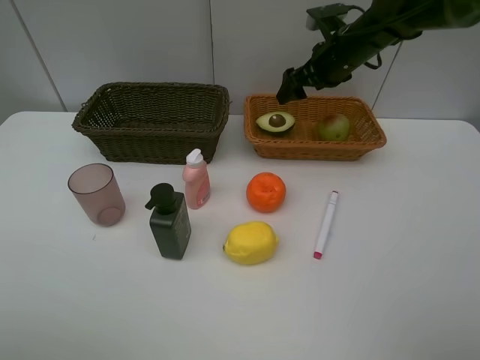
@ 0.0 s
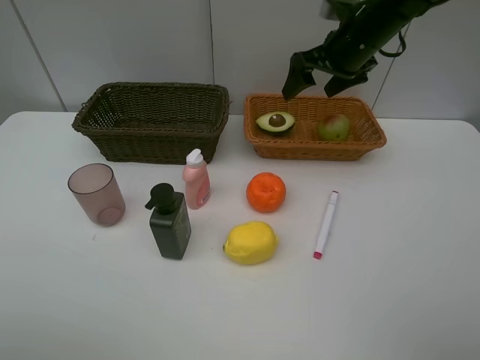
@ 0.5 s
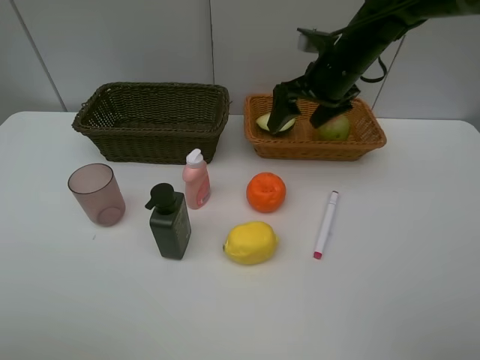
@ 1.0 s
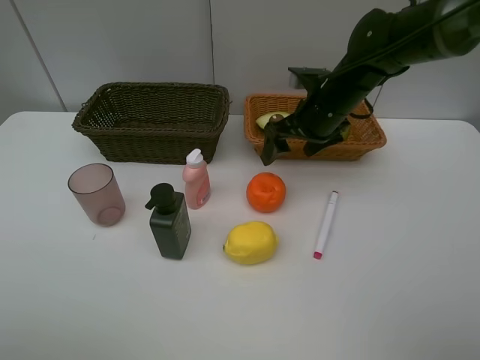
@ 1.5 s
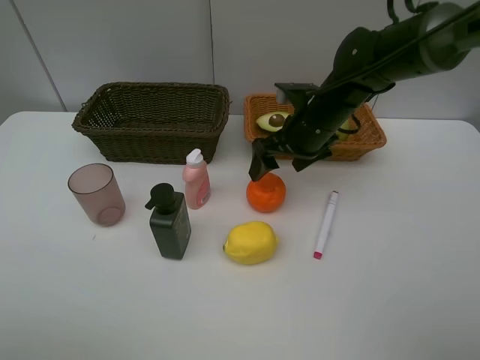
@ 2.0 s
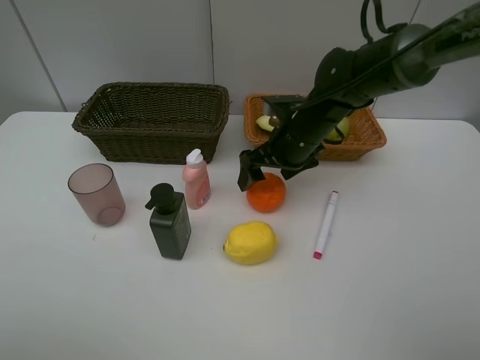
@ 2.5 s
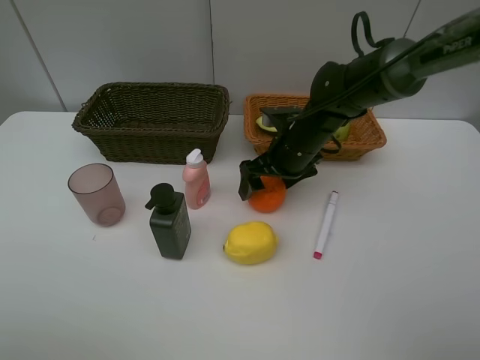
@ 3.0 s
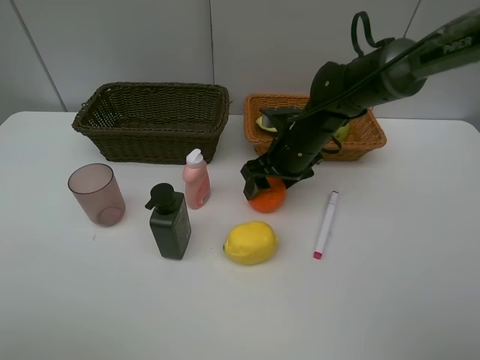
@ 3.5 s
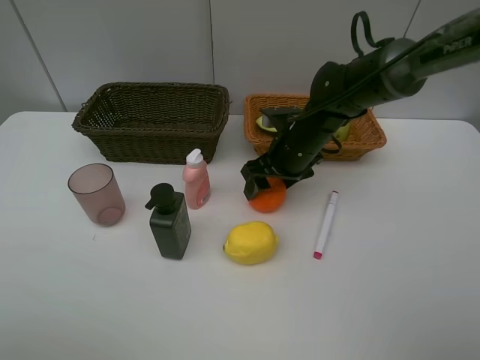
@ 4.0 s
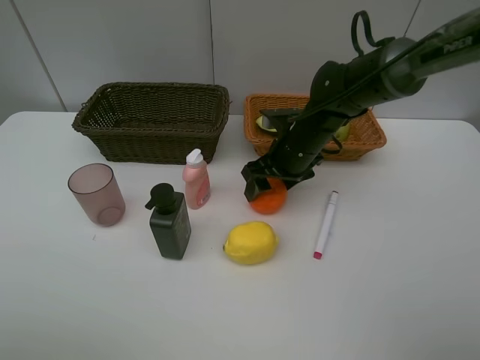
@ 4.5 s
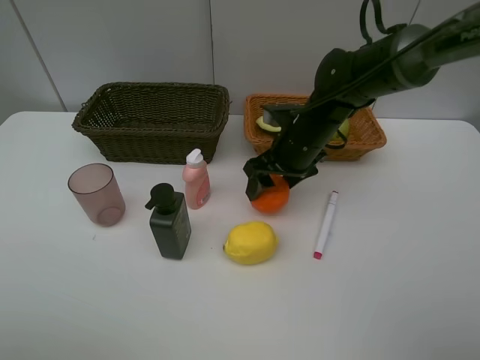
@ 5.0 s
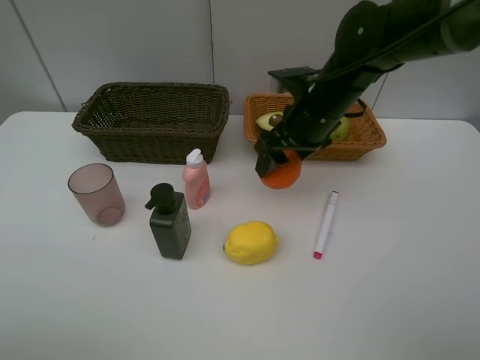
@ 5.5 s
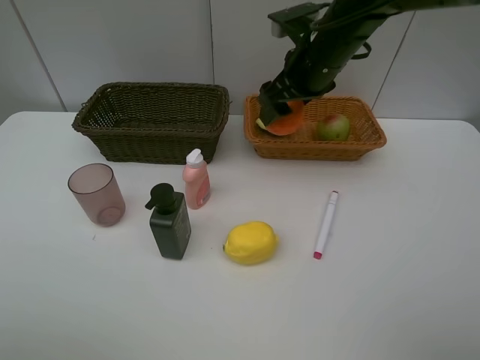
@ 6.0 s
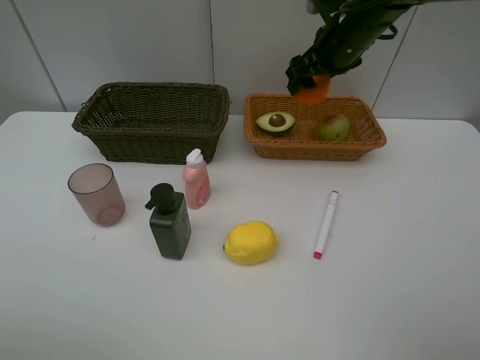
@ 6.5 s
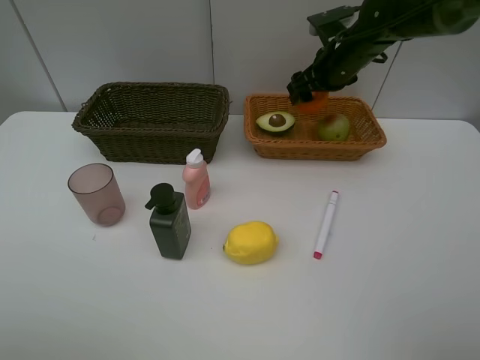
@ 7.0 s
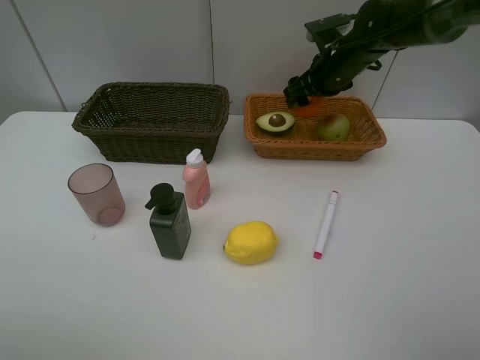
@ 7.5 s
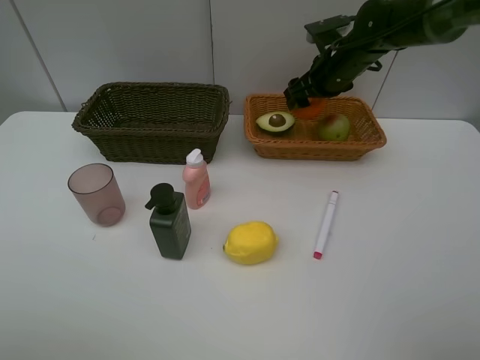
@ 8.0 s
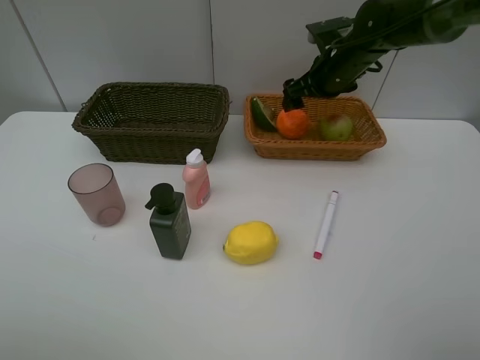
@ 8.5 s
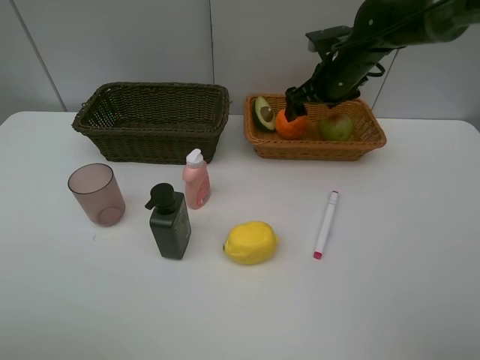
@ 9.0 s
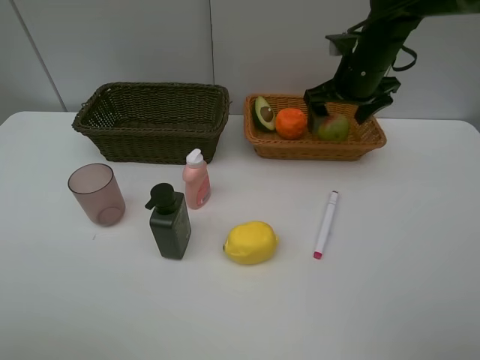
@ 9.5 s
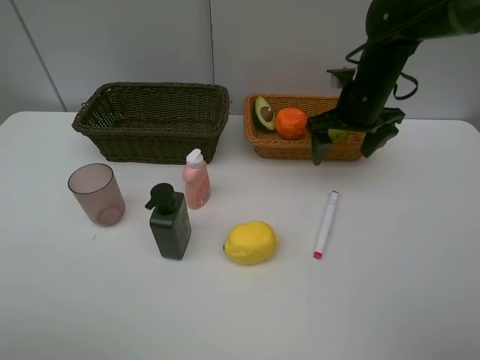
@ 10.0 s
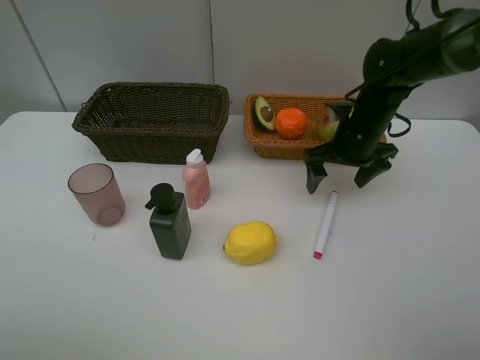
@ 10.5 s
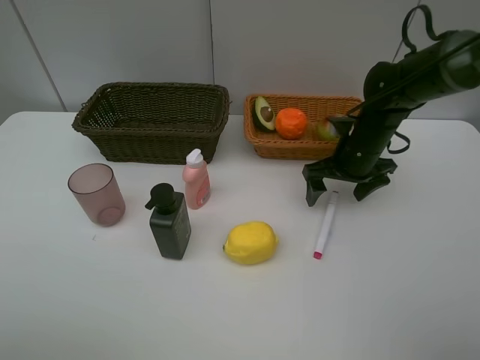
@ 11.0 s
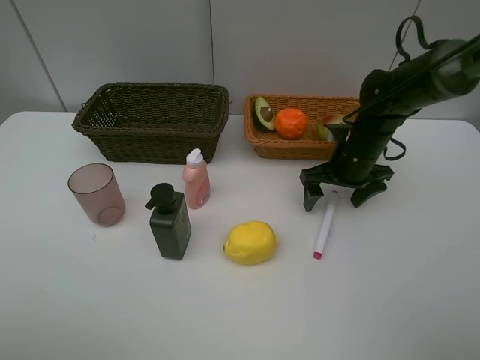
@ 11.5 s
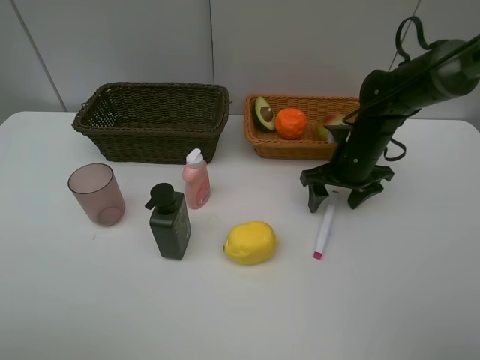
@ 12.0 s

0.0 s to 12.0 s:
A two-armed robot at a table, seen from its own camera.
Task of the whole recording: Place multiple objects separately in different baskets.
Step, 0.0 to 5.0 s: Pick up the orange with right gripper.
Step, 5.5 to 9.0 s: Place the orange in the light basket with right gripper.
0.0 to 2.0 s: The right gripper travels backward, downward and to the left by some 15 cm.
2.0 to 4.0 s: The grippers move only a little.
4.0 to 6.0 s: The right gripper goes some 15 cm upward.
6.0 to 8.0 s: The right gripper travels forward, to the right and downward by approximately 10 cm.
8.0 to 10.0 s: The right gripper goes about 5 cm backward.
10.0 to 12.0 s: The right gripper travels downward by approximately 10 cm.

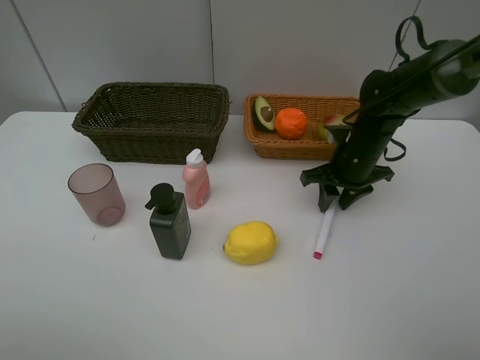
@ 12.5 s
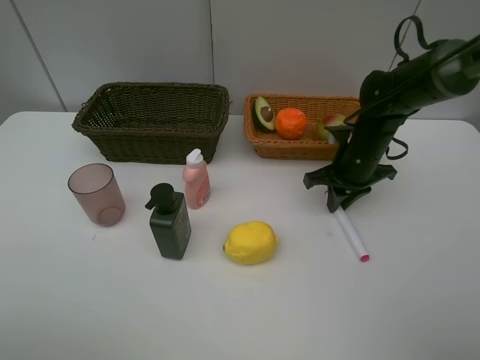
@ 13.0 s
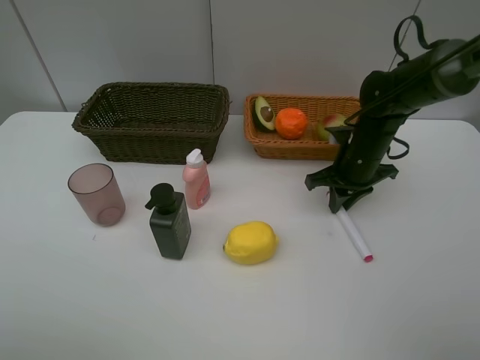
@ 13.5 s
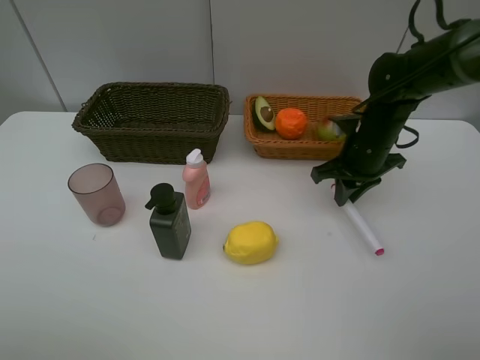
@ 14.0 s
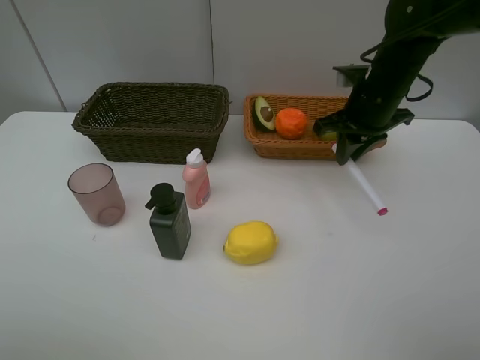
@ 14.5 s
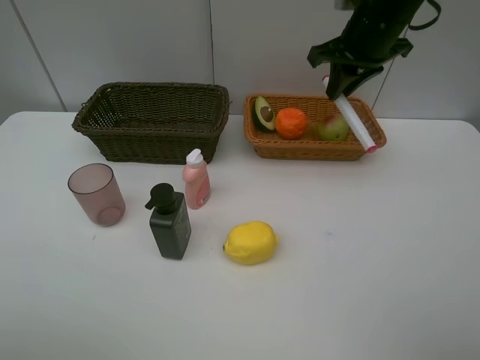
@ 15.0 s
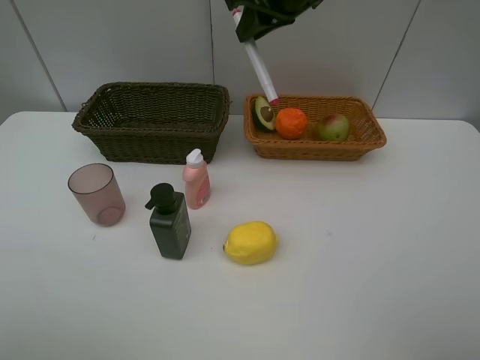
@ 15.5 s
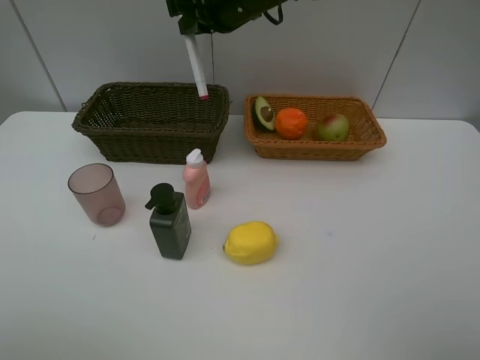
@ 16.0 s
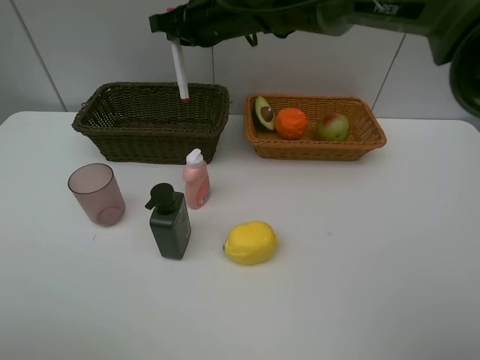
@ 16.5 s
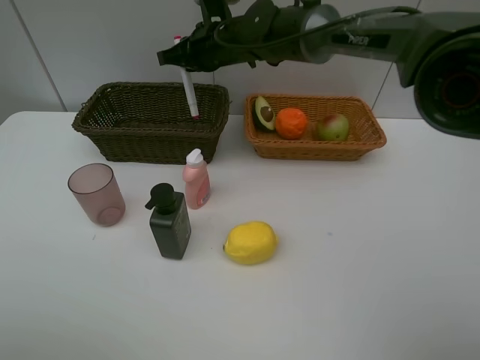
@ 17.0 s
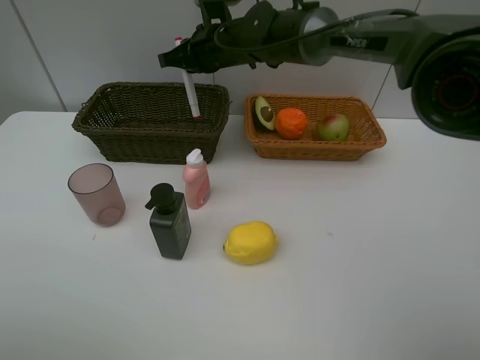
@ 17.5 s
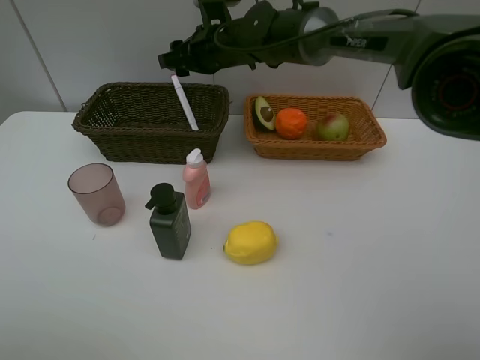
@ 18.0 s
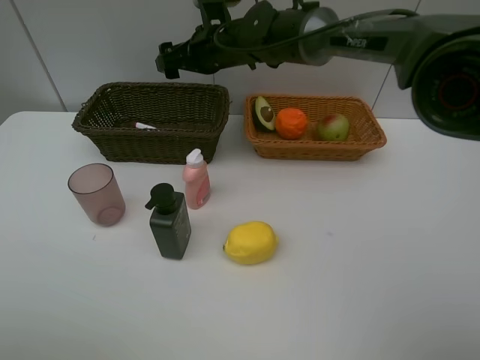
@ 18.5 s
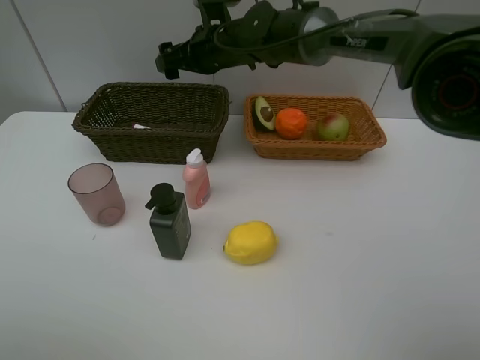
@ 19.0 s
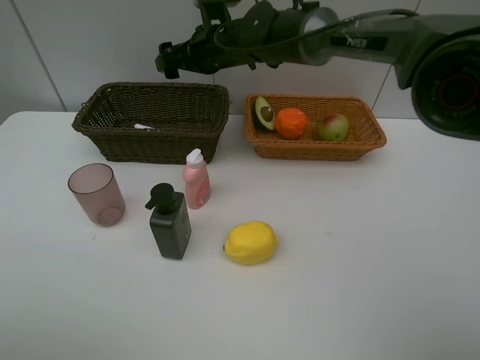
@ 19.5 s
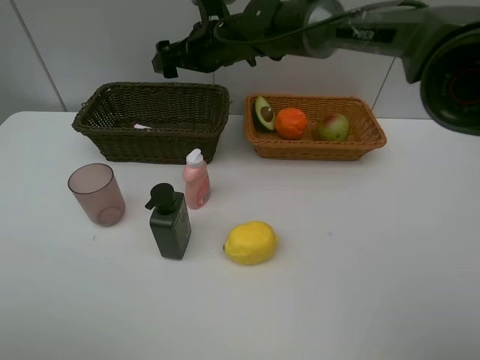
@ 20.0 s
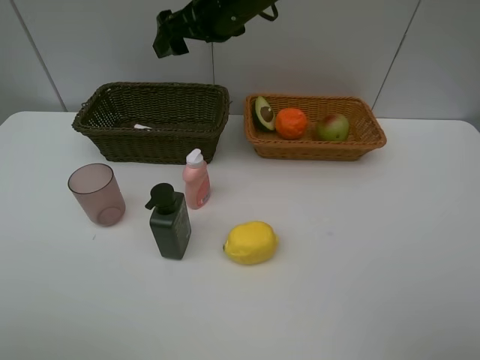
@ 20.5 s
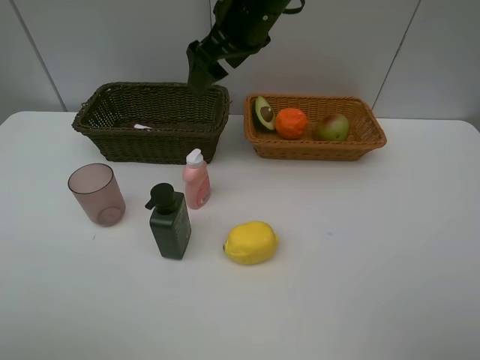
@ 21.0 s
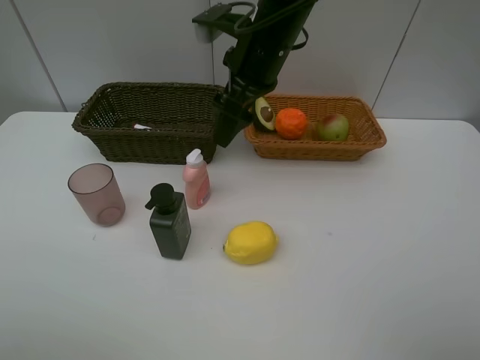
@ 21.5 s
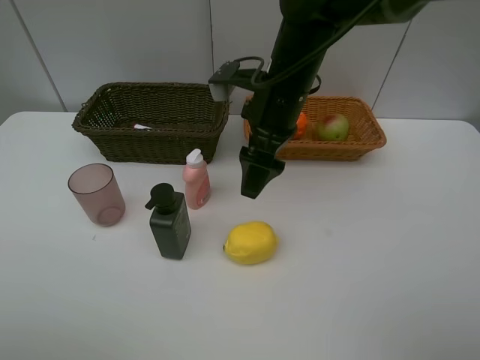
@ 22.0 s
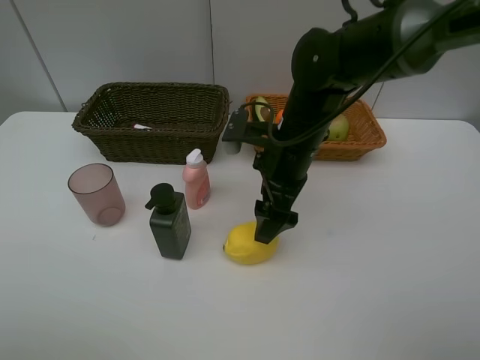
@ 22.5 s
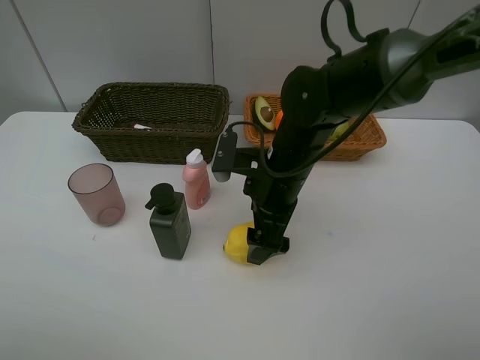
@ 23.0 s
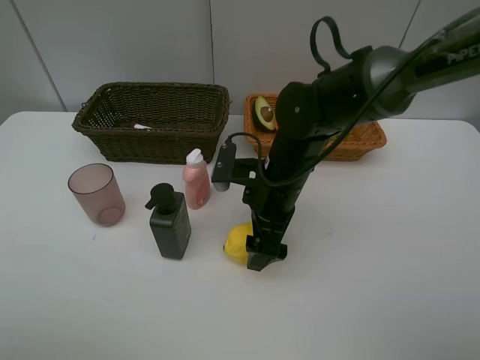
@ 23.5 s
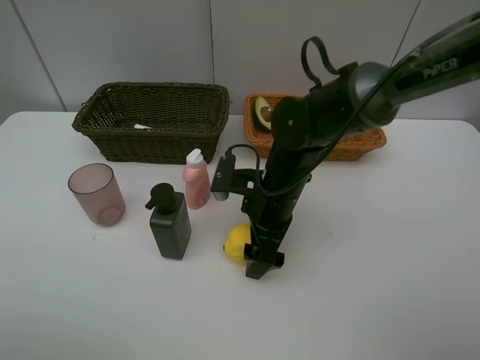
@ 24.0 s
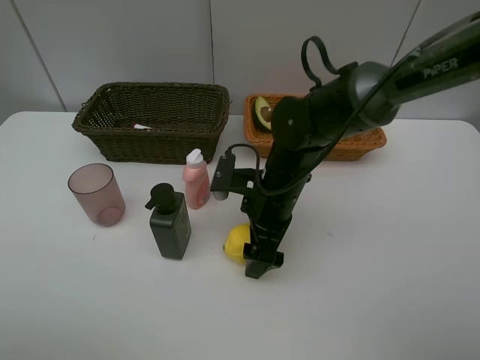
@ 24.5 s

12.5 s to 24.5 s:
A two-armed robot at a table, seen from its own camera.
Task of the whole recording: Place multiple objects separately in different baskets.
Step, 14.5 to 18.5 s: Place the red marker in the dark basket with right gripper.
12.5 to 14.5 s: The right gripper is displaced upward by about 10 cm.
14.5 to 16.5 s: The right gripper goes about 20 cm to the left.
16.5 to 18.5 s: The right gripper opens its fingers.
18.5 to 20.5 s: The right gripper goes approximately 10 cm upward.
20.5 to 22.5 s: The right gripper shifts some 20 cm downward, backward and to the right.
22.5 to 24.5 s: The right gripper shifts roughly 5 cm downward.

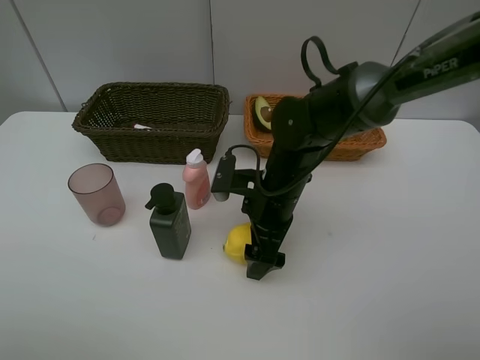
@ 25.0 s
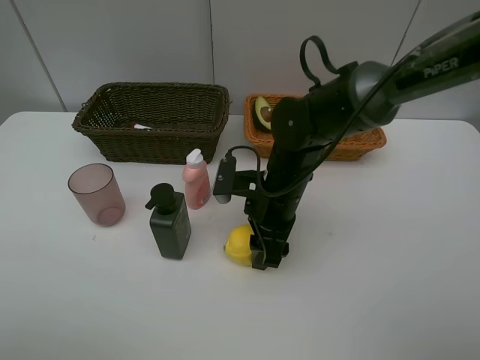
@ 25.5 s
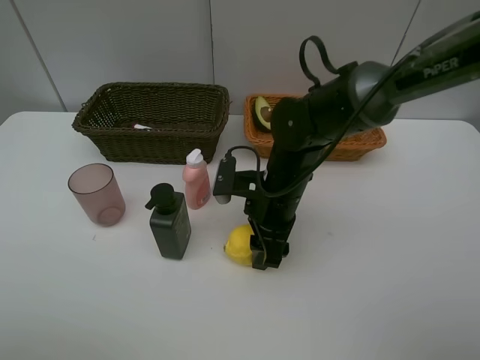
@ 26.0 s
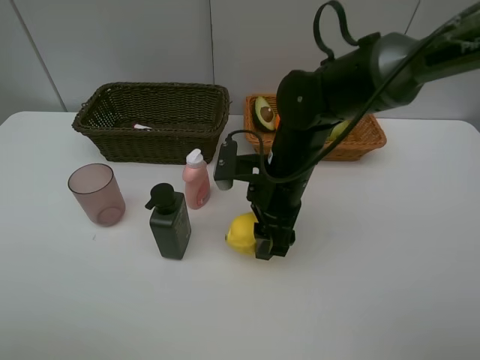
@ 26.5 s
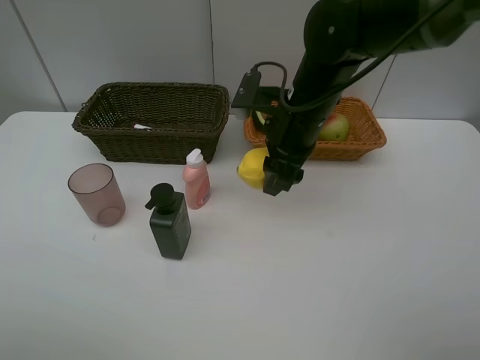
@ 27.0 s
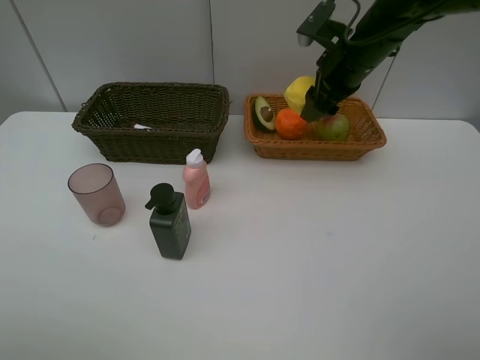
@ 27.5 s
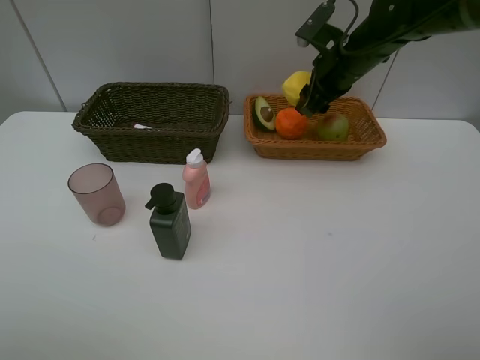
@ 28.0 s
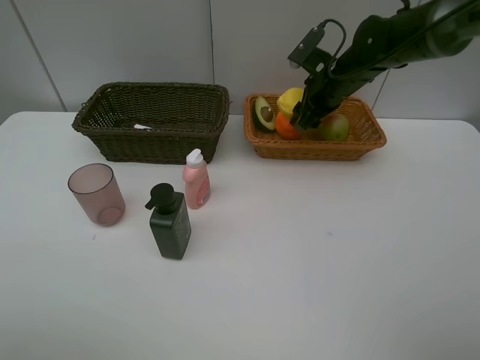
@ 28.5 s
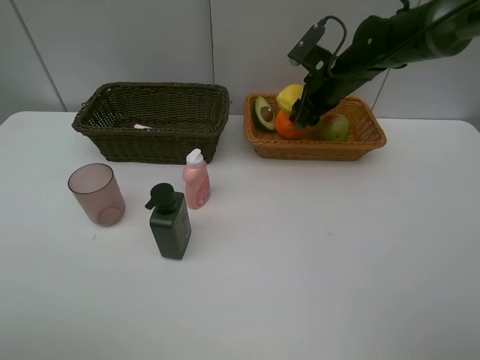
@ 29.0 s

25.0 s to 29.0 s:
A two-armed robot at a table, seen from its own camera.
Task of the whole recording: Place multiple objects separately in different baskets.
25.0 to 27.0 s: The right gripper travels upward and forward by some 10 cm, and closes.
27.0 to 29.0 s: The right gripper heads forward and to the right, covering approximately 15 cm.
